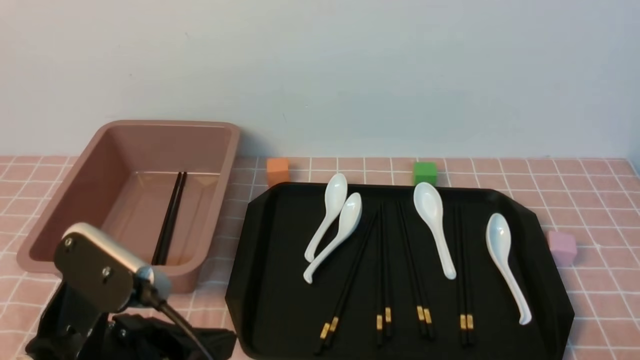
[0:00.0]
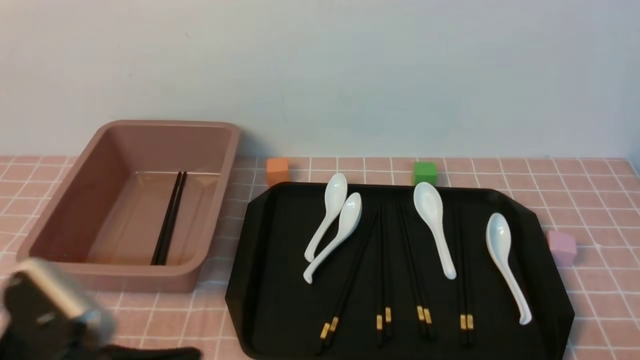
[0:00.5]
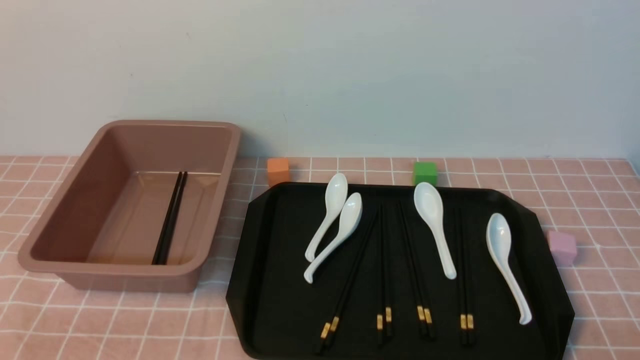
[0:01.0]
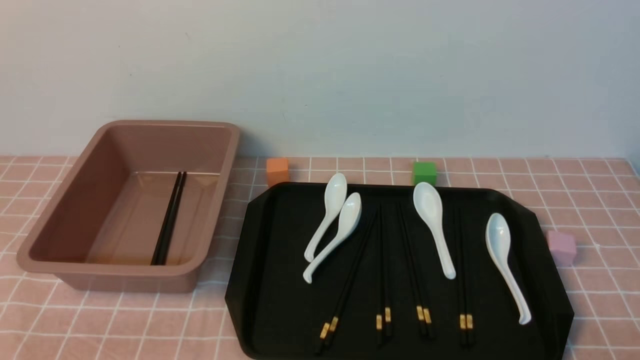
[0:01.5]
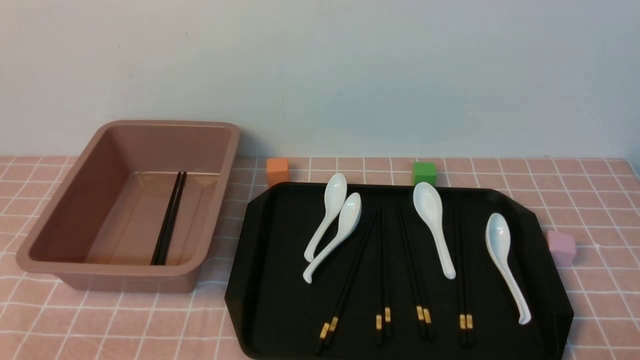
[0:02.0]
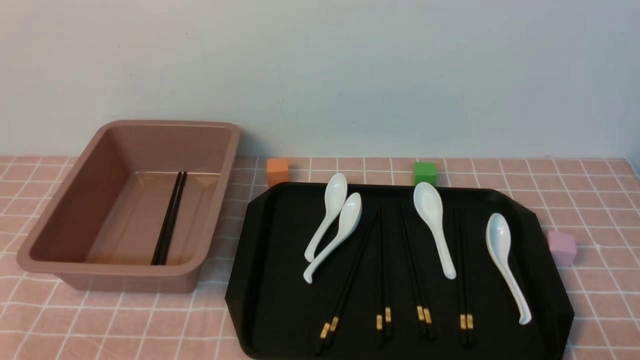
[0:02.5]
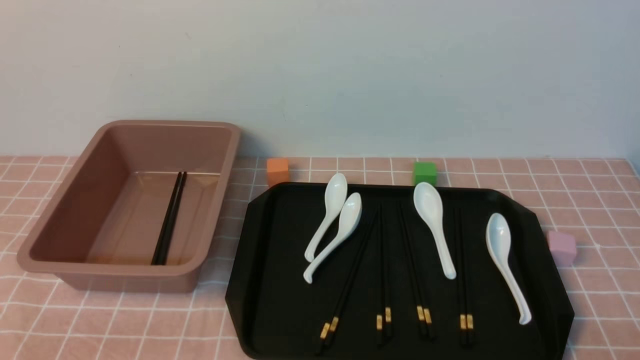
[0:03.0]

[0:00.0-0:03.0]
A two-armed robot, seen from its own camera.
0:00.0 to 0:01.5: The left gripper shifts roughly 15 cm to the left, downward and backward.
0:01.5 to 0:03.0: Neither gripper changes place.
